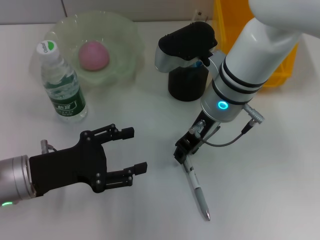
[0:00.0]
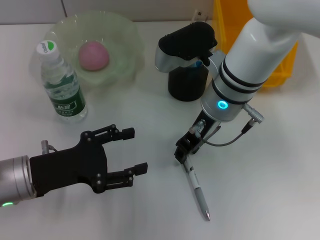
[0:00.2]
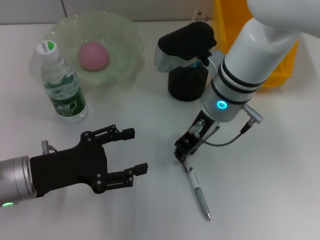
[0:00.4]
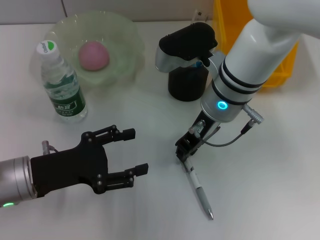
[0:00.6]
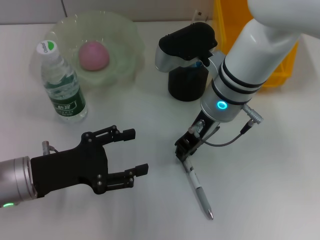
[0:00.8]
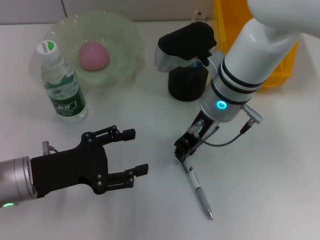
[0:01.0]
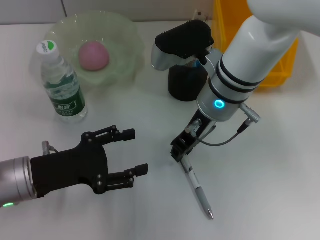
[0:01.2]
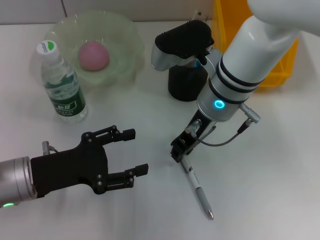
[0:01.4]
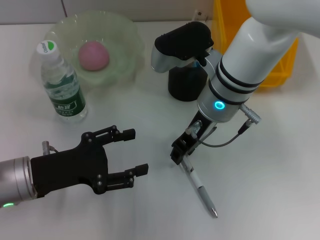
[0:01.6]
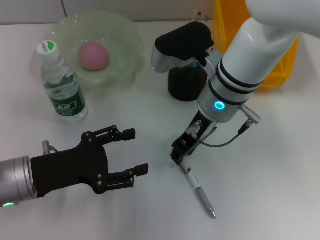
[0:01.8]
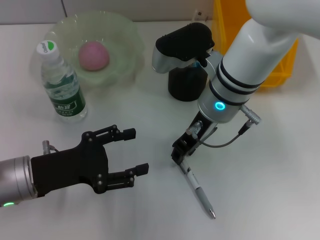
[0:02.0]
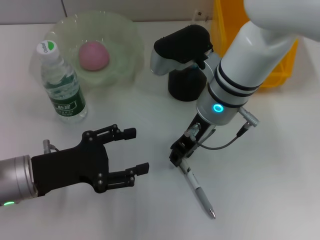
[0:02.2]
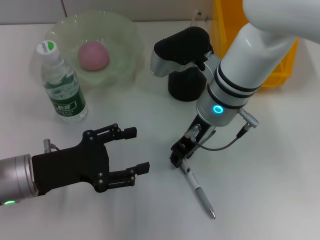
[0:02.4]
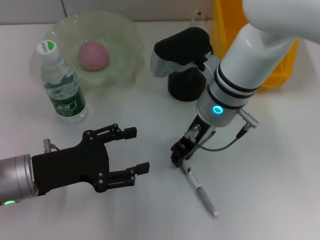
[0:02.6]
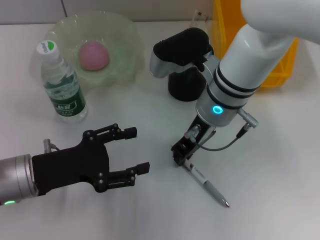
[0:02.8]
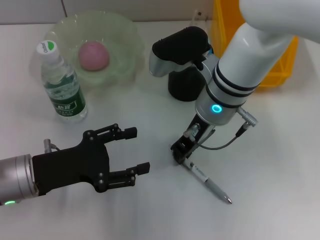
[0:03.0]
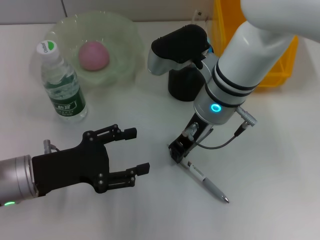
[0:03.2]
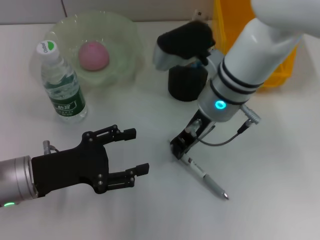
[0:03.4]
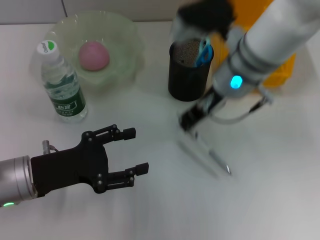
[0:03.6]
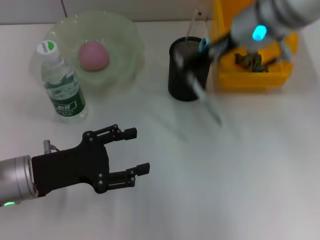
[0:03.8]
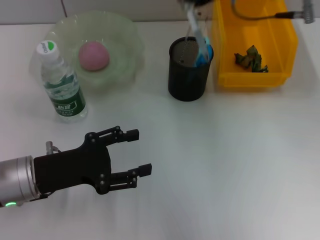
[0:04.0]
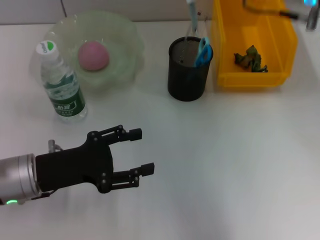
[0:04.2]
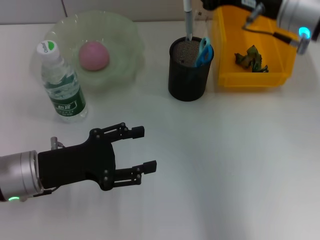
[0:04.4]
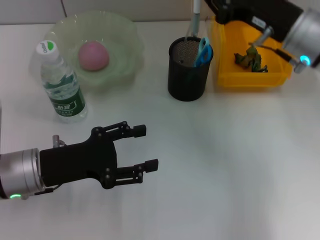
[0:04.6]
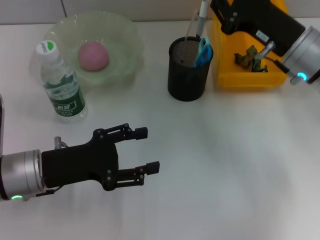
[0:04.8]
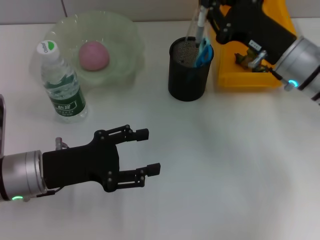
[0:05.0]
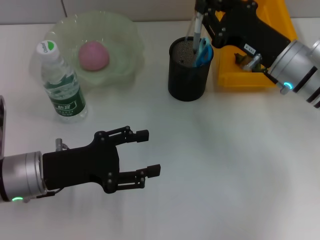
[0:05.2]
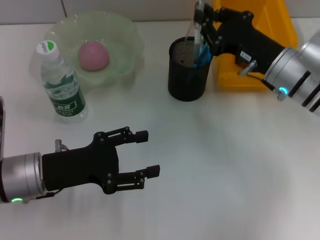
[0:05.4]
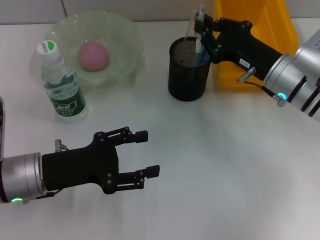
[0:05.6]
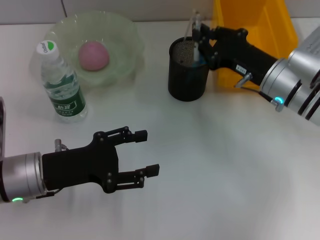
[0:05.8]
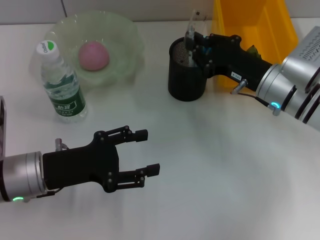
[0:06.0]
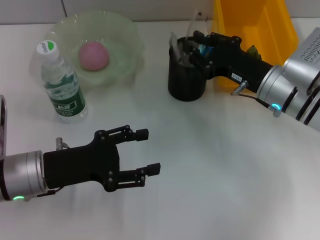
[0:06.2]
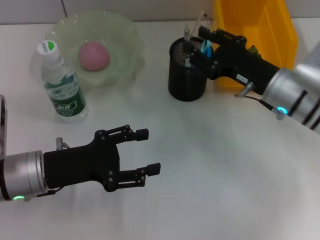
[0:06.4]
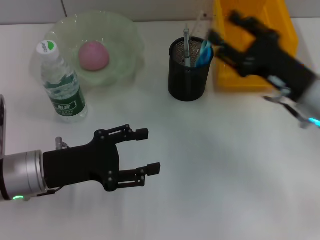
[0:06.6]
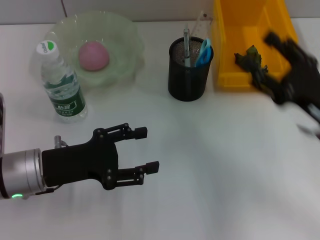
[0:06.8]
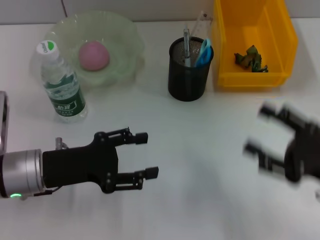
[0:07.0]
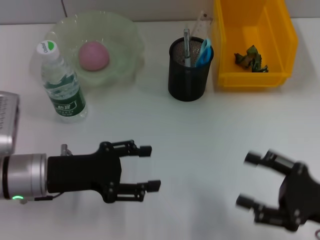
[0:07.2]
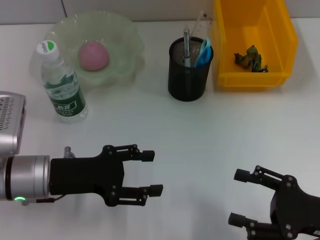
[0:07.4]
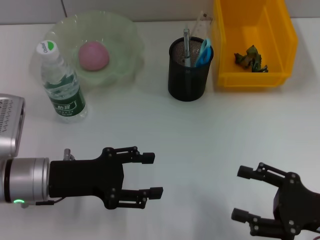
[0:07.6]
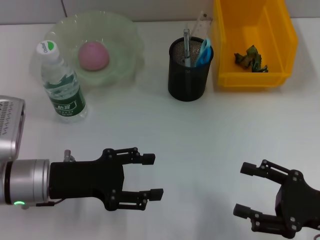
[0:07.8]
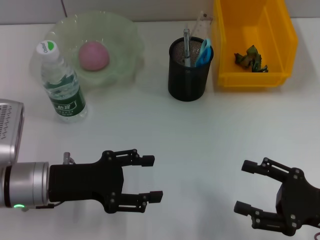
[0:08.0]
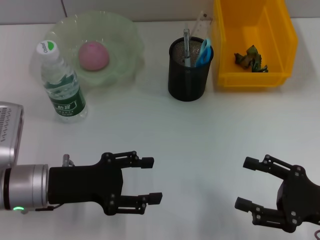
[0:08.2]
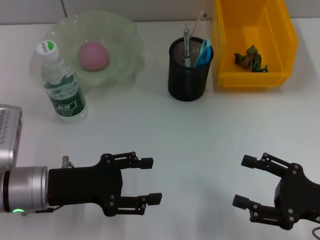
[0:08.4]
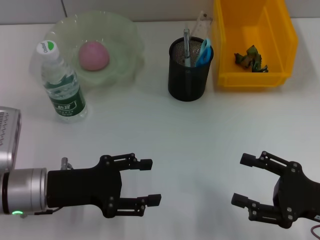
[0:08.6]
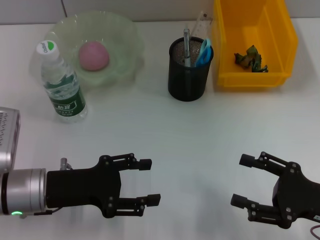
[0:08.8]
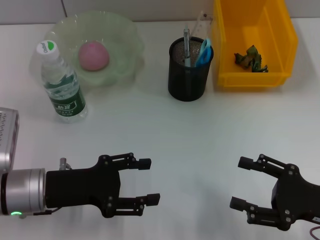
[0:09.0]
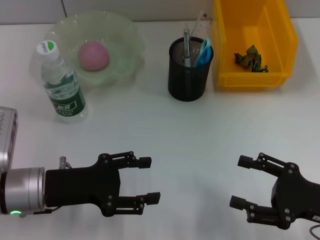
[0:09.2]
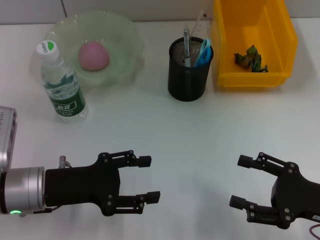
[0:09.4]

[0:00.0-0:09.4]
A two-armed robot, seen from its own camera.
Step, 0:00.0 to 0:03.0: Grab the gray spring-action pen with the right hand.
Step, 0:03.4 to 0:06.4: Place the gray spring-action pen into the pen holder with the right hand.
0:00.0 to 0:03.2: Both grippers stay about where they are.
0:03.2 to 0:04.8: The right gripper shifts approximately 15 cm to the right, and travels upward and back again, roughly 15 cm each way.
0:04.8 to 0:06.2: The right gripper travels downward by approximately 5 cm.
0:06.2 to 0:07.8: The right gripper travels backward and to the right by approximately 20 cm, and opens up.
0:07.8 to 0:09.4: The grippers stay close to where they were, moving slightly.

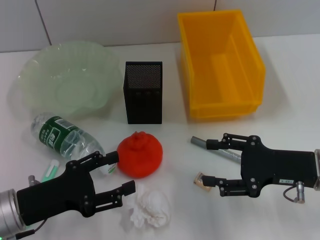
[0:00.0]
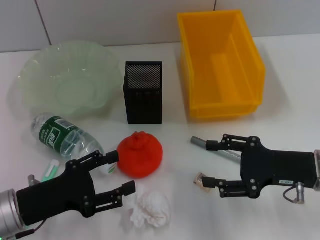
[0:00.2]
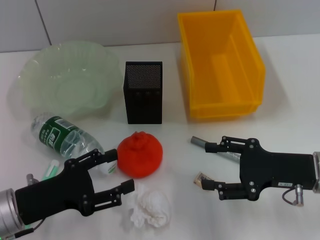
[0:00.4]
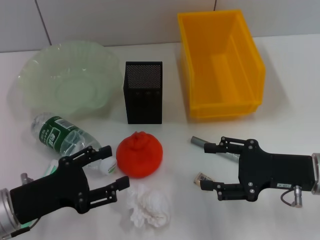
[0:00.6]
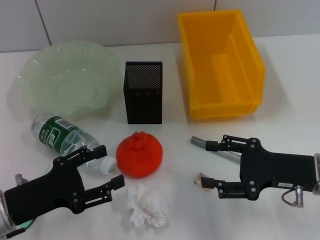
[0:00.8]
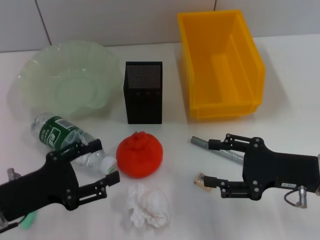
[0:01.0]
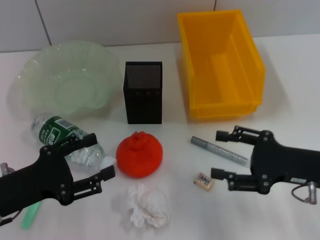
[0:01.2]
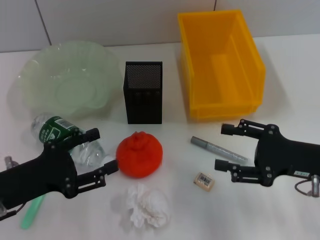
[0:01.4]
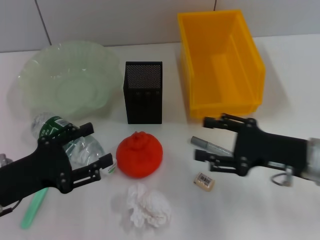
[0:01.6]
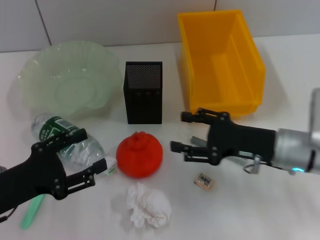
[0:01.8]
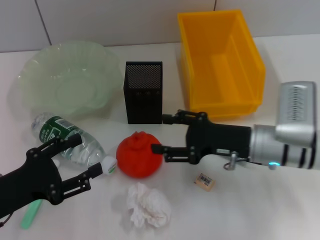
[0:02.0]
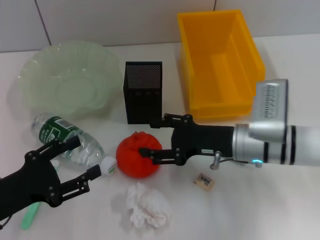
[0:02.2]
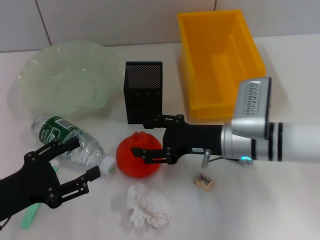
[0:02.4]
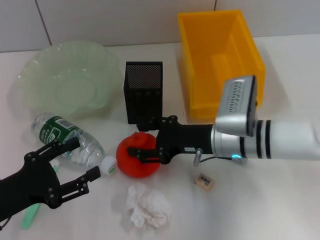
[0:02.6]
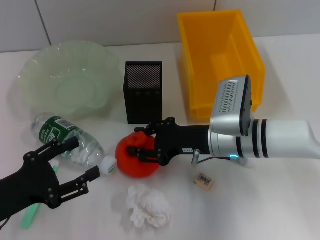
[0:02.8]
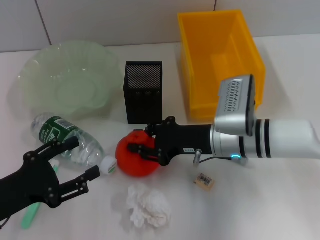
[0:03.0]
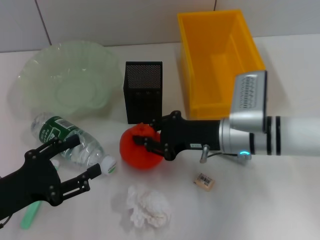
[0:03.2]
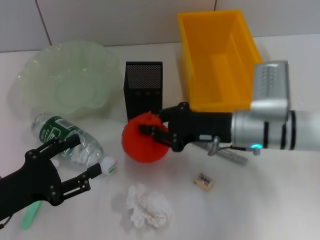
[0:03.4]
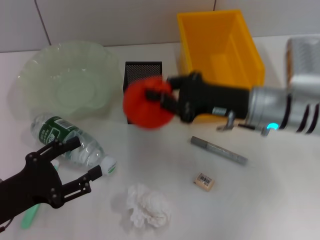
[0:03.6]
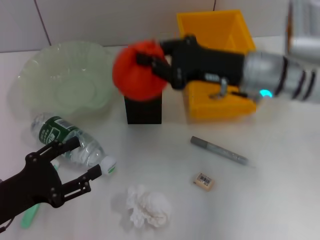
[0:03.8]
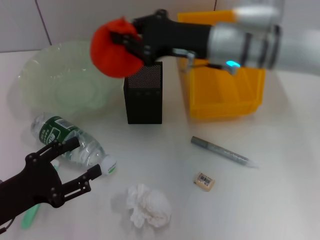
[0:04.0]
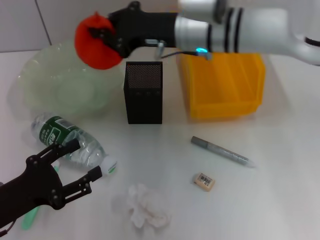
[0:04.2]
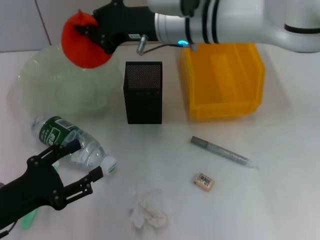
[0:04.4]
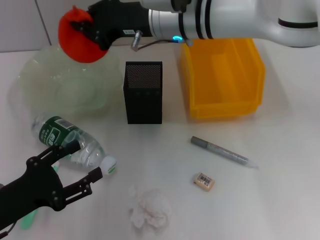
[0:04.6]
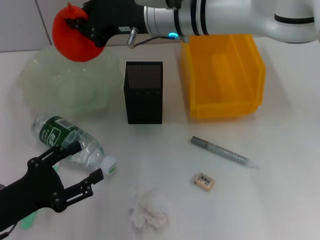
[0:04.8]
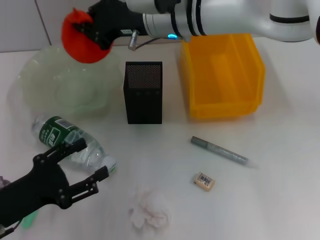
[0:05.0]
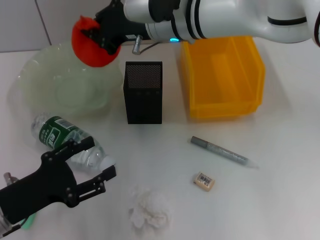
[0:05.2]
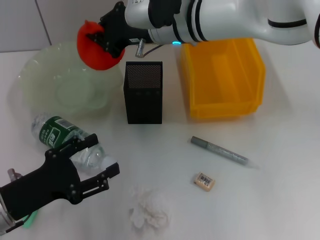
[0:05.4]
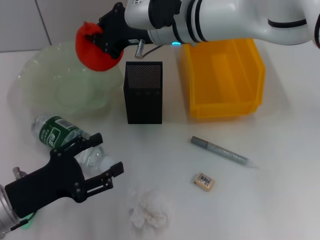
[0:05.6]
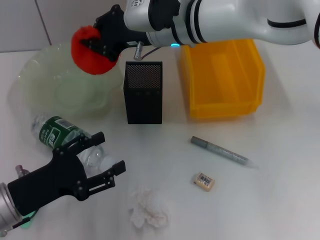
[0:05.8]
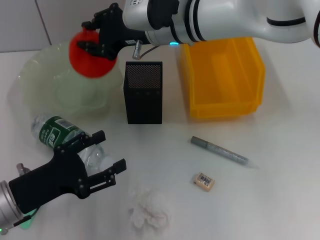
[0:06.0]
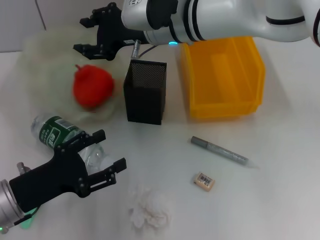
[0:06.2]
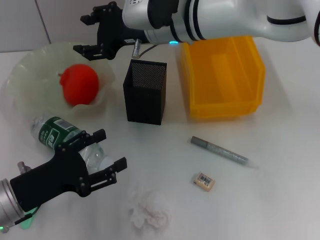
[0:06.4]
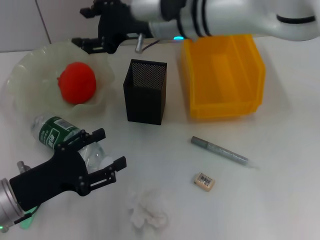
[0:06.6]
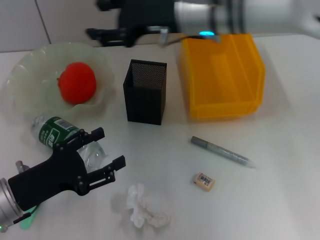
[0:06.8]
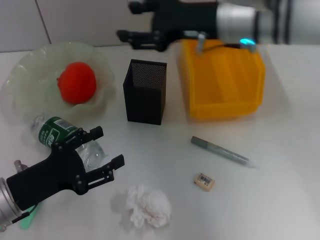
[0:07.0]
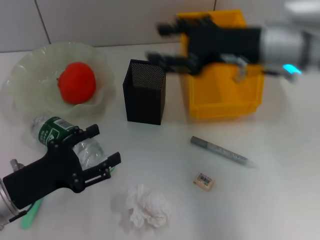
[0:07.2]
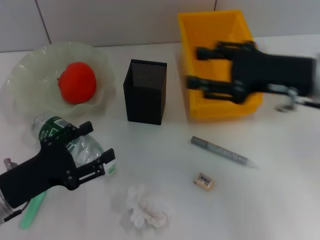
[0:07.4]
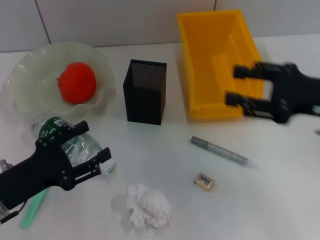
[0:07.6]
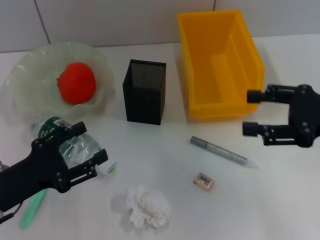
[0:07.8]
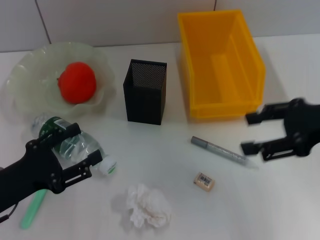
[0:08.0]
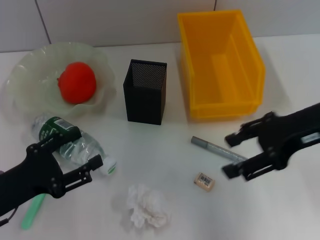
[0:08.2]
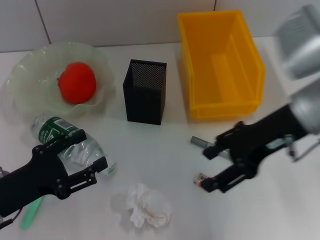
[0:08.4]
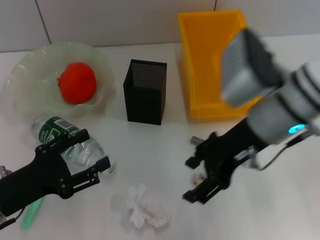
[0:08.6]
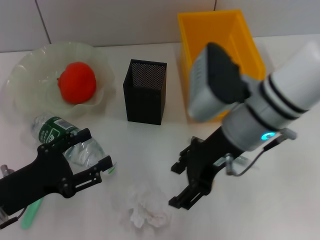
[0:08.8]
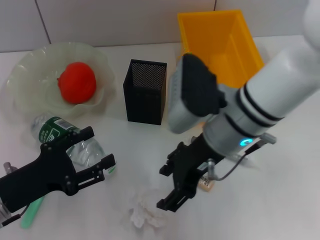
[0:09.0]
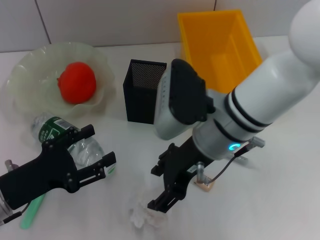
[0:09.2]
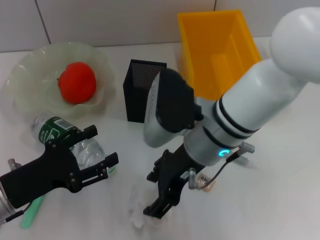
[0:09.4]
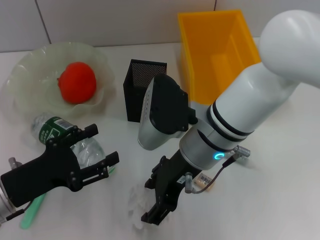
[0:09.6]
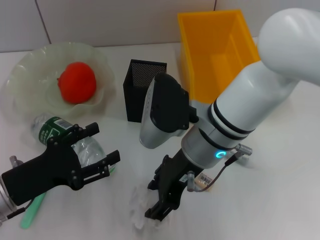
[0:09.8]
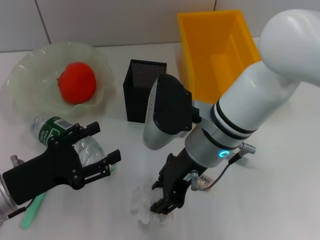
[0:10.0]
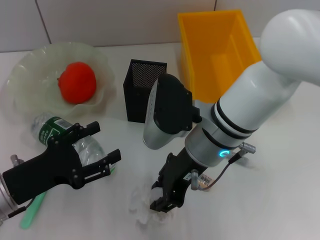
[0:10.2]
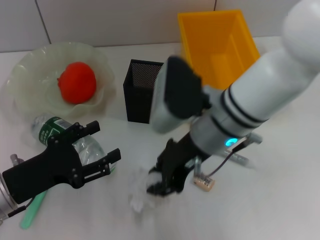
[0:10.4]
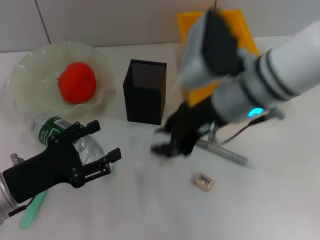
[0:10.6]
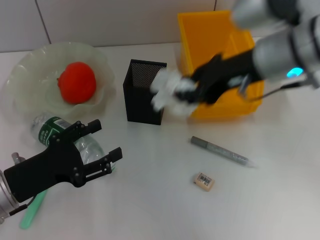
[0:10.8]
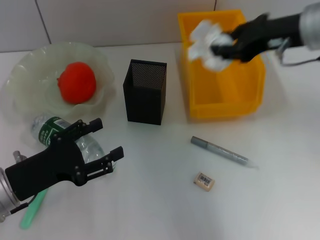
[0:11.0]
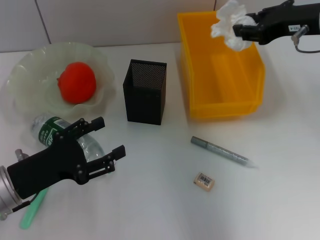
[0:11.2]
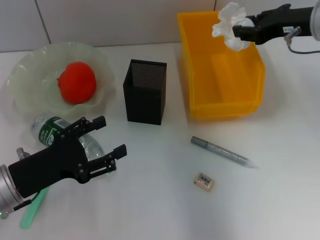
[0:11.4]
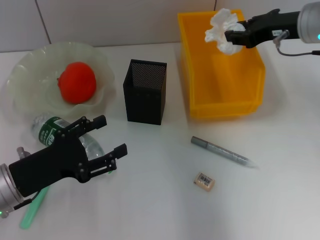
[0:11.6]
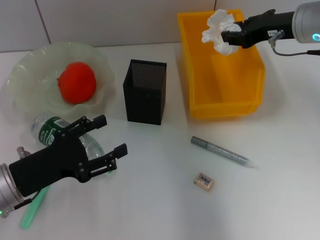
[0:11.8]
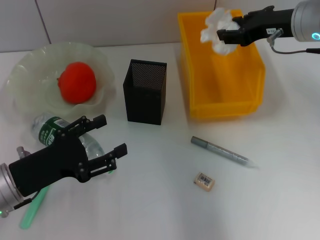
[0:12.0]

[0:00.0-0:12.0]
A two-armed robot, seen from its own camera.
Step, 0:00.0 to 0:02.8: Grab the orange with the right hand.
Step, 0:03.0 to 0:06.0: Place the orange into the fruit bowl with the right hand.
Step, 0:06.4 to 0:10.0: Grab the paper ball with the right hand.
0:00.0 to 0:01.6: The grippers move only a little.
0:01.6 to 0:03.0: The right gripper moves to the left and forward, about 15 cm, and closes its fingers.
0:03.0 to 0:04.4: The right gripper shifts about 20 cm upward, forward and to the left, and closes.
0:04.4 to 0:06.0: The grippers move only a little.
0:06.0 to 0:07.6: The right gripper shifts roughly 30 cm to the right and backward, and opens.
0:07.6 to 0:09.0: The right gripper travels to the left by roughly 20 cm.
0:09.0 to 0:10.4: The right gripper closes.
0:10.4 to 0:12.0: The right gripper shifts approximately 20 cm to the right and forward.

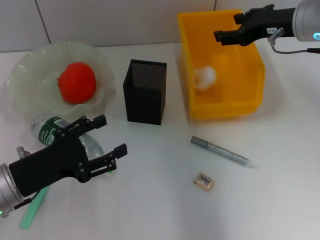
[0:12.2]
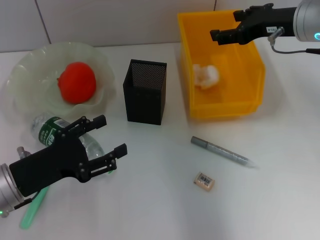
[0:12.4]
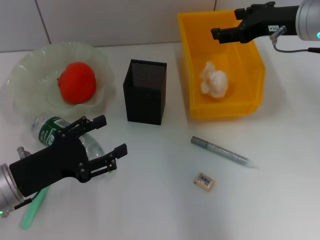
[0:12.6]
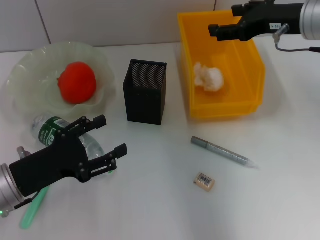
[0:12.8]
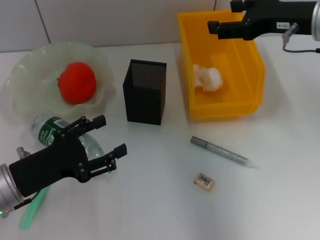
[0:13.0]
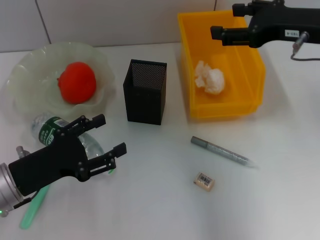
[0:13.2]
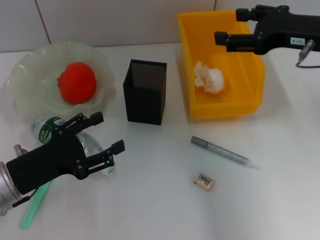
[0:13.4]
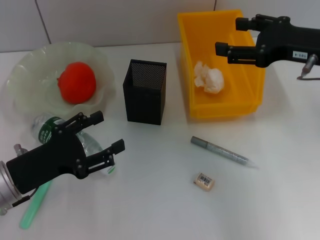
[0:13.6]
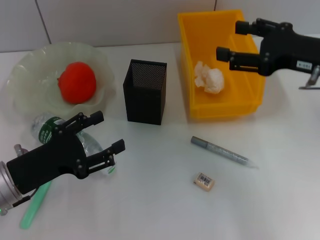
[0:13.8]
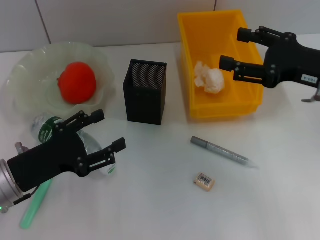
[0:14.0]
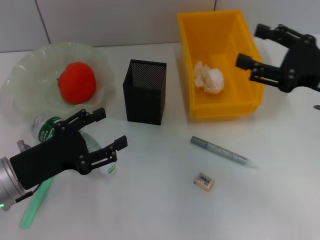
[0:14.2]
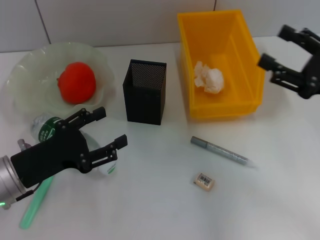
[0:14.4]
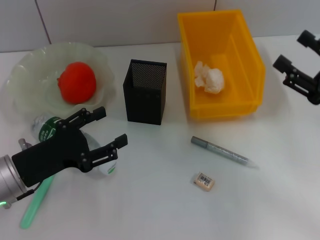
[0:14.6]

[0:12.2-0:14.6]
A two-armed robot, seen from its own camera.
0:12.2 to 0:13.4: The right gripper moves backward, approximately 5 cm.
0:13.4 to 0:14.6: The right gripper is displaced downward, backward and to the right by approximately 15 cm.
